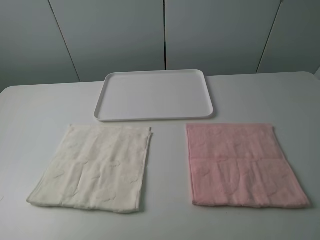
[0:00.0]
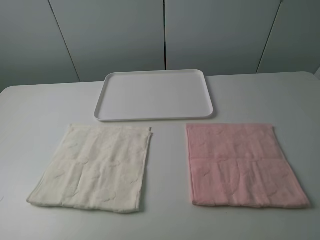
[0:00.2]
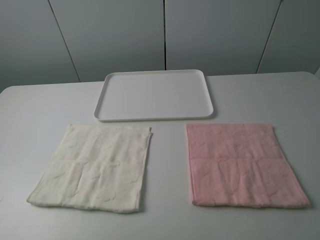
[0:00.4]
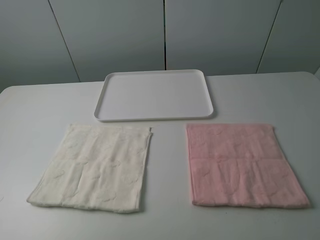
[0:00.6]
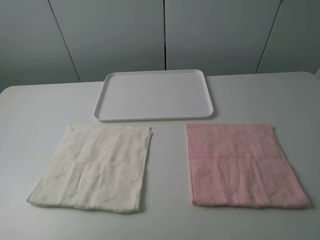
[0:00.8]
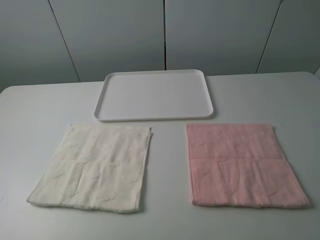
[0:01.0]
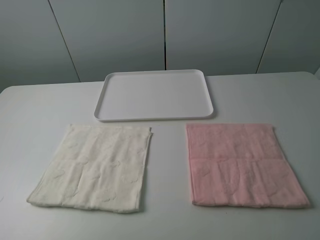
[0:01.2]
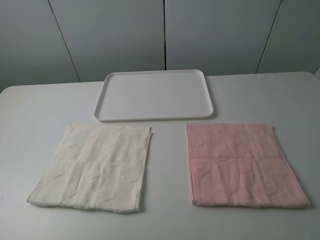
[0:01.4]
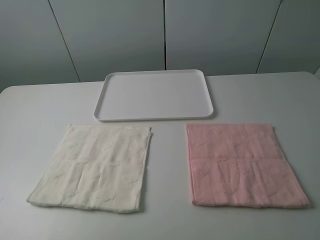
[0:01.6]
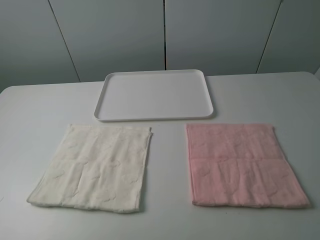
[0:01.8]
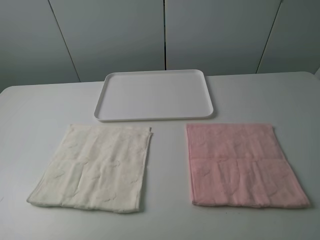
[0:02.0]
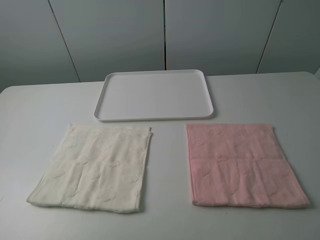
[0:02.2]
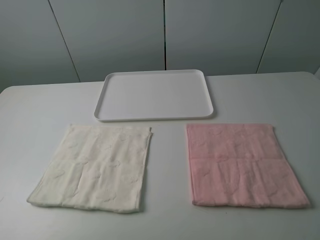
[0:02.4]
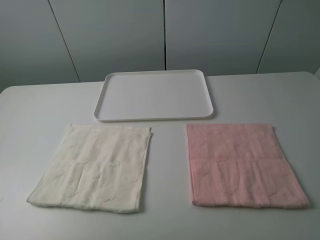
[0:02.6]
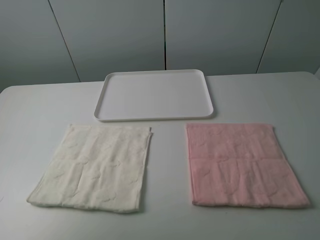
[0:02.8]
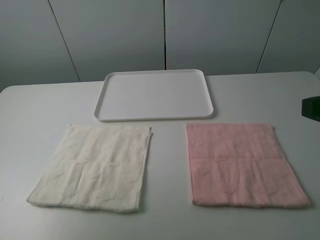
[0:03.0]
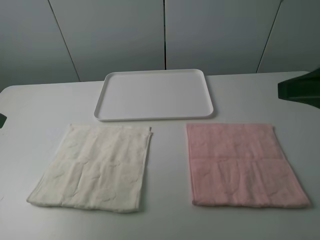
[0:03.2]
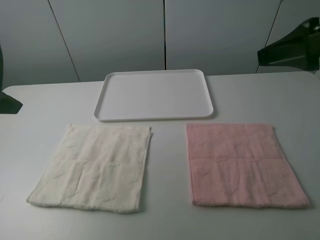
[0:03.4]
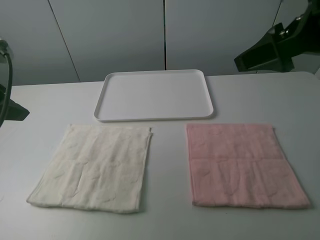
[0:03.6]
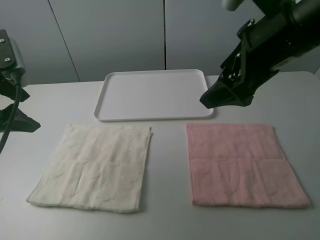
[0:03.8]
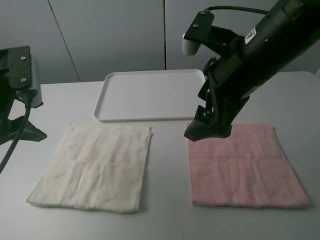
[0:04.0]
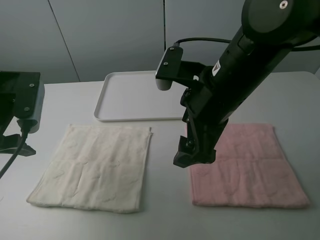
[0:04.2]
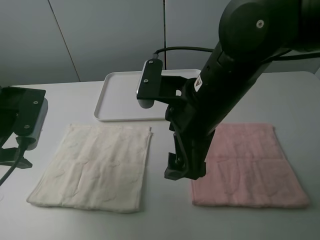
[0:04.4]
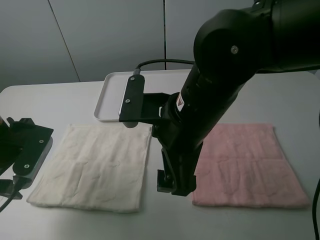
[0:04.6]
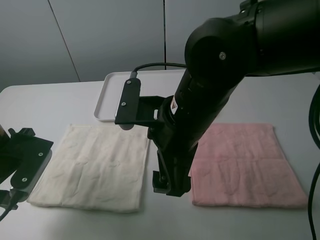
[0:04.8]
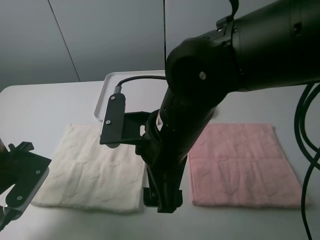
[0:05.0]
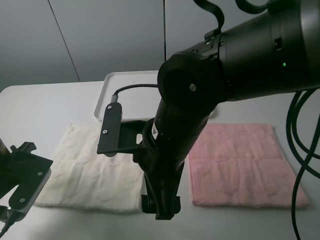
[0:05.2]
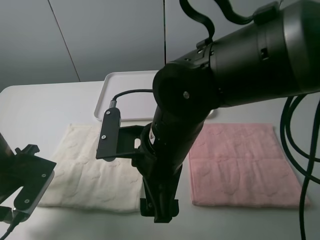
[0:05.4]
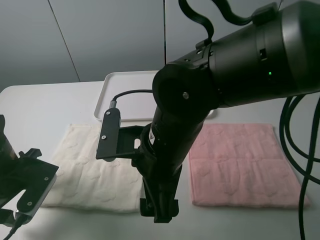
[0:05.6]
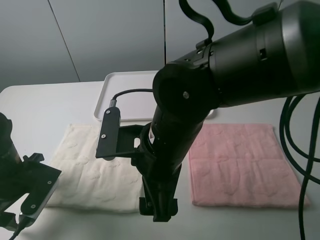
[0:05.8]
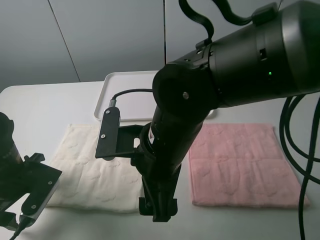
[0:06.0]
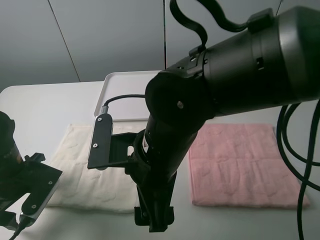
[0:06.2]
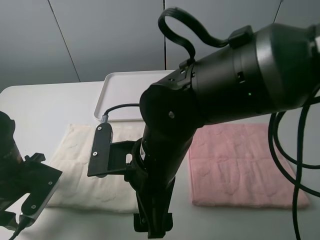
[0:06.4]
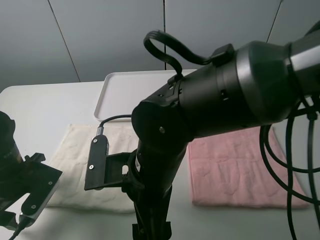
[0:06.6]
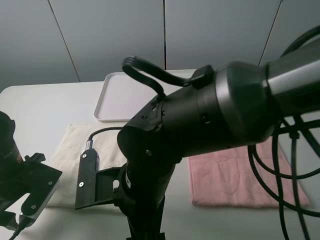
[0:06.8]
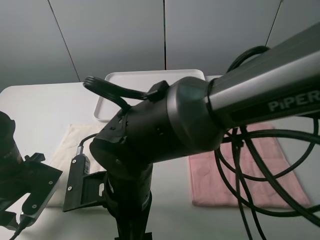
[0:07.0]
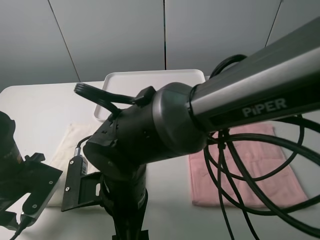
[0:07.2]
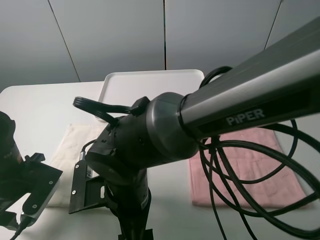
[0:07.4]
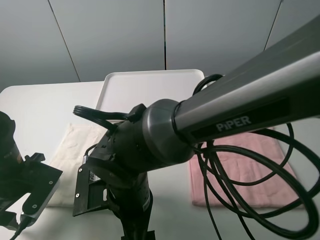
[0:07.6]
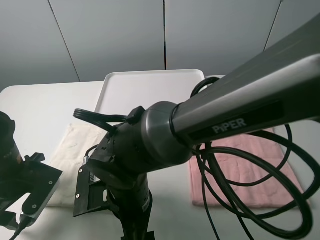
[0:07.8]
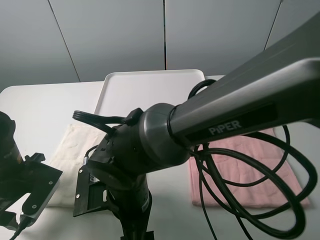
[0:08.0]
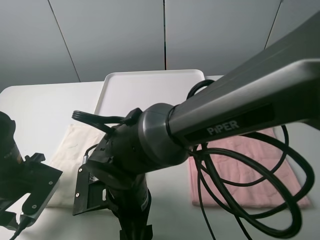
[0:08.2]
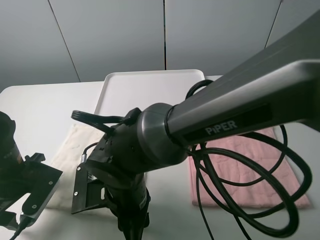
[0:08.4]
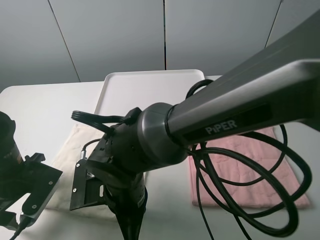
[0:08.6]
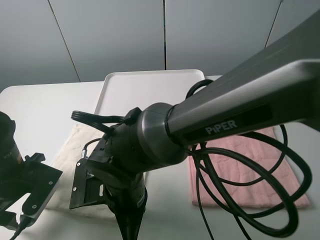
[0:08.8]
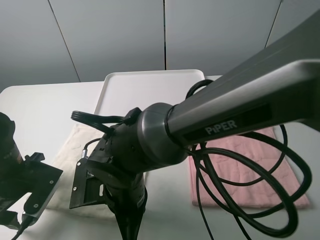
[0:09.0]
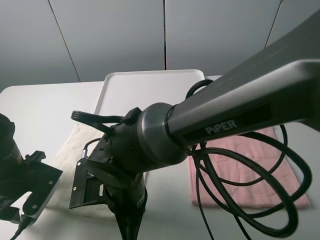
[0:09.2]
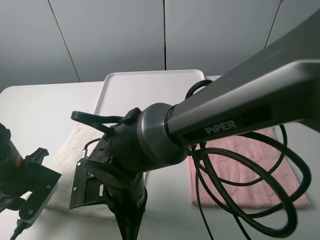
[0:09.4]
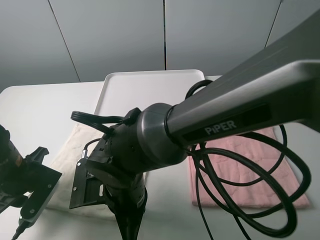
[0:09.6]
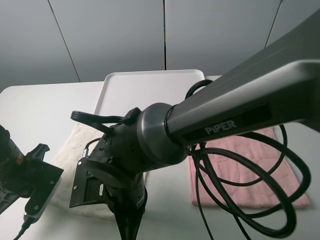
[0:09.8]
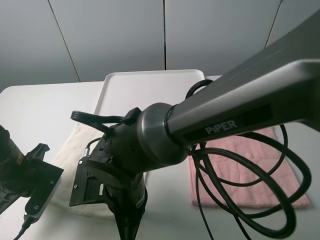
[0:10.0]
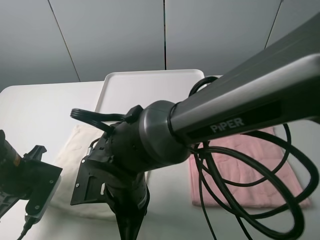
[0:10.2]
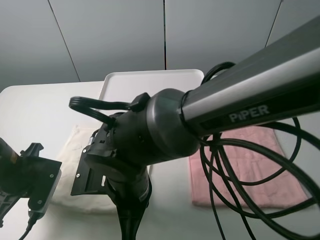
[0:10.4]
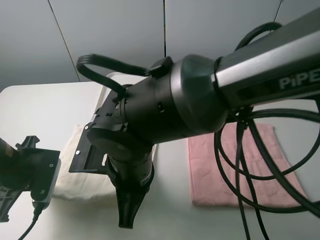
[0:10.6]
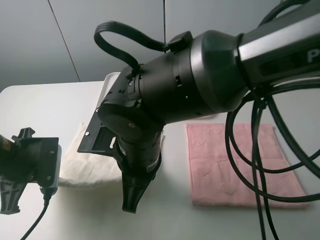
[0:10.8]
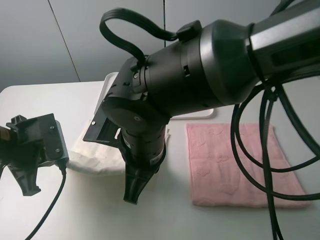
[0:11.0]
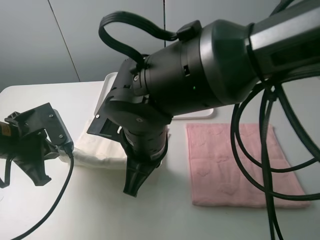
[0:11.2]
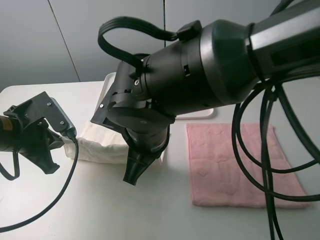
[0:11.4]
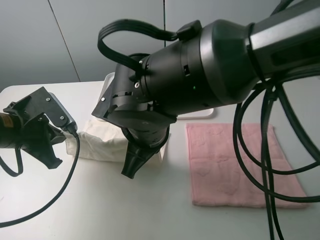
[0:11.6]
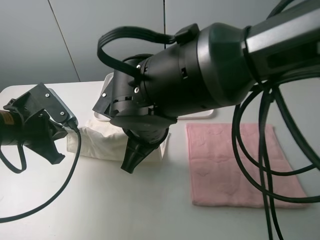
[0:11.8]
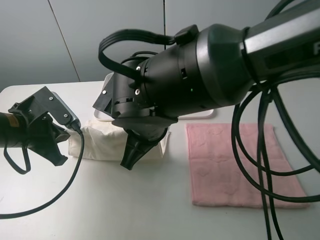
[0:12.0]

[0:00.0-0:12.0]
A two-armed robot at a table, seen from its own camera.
Task of the whole recording: fold one of the towels by two grippers and place it on the tray,then fold another towel by two grippers and place it on the folded towel.
Step, 0:00.0 to 0:10.0: Grasp the white towel with the left gripper.
0:01.6 to 0:03.0: The grippers both shift forward by approximately 10 cm.
0:03.0 to 0:04.4: The right gripper moves to the left and forward, approximately 20 cm, while the left gripper travels forward and downward by some 10 cm.
0:04.4 to 0:06.0: The right gripper goes some 5 cm to the left, while the left gripper moves downward, some 10 cm.
0:06.0 to 0:07.6: The right gripper heads downward and to the left, covering roughly 10 cm.
0:07.6 to 0:09.0: The right gripper closes up.
0:09.0 to 0:10.4: The left gripper closes its fingers.
0:10.4 to 0:12.0: The left gripper ends up approximately 5 cm from where it was; the right gripper travels forward and upward by some 10 cm.

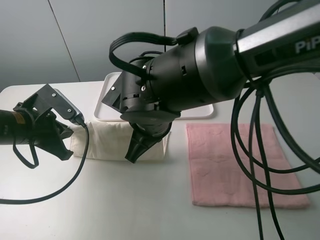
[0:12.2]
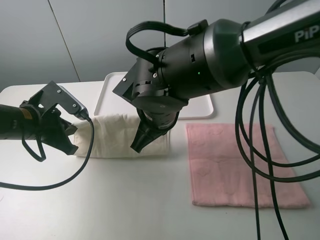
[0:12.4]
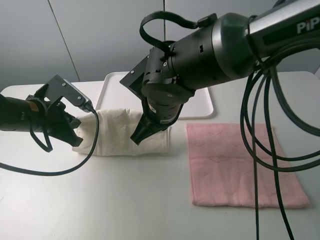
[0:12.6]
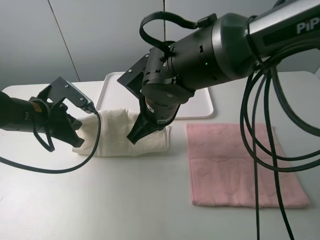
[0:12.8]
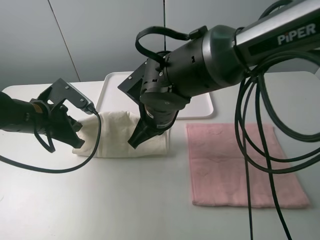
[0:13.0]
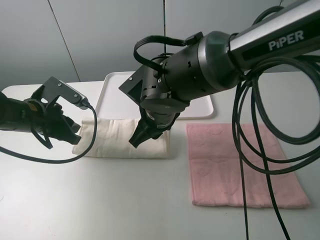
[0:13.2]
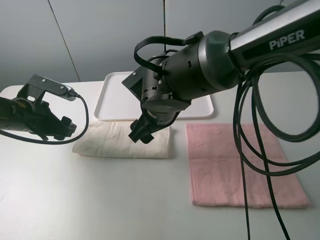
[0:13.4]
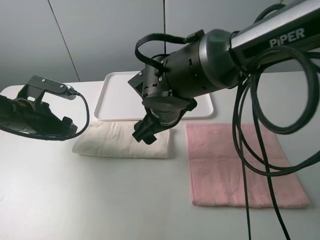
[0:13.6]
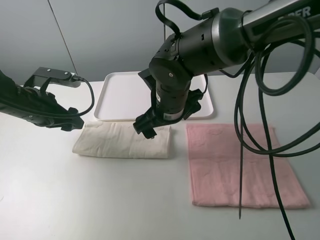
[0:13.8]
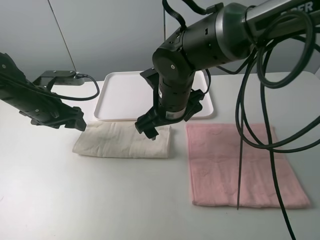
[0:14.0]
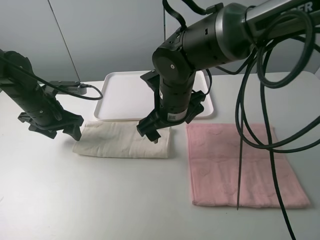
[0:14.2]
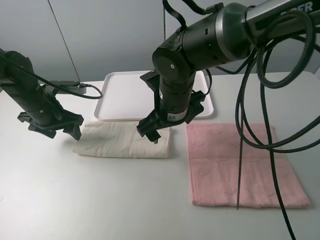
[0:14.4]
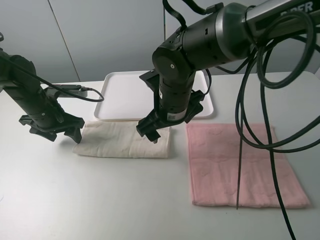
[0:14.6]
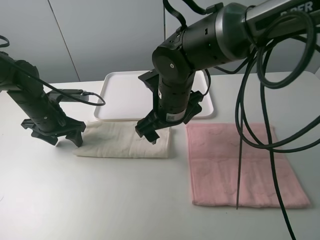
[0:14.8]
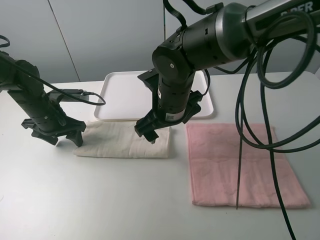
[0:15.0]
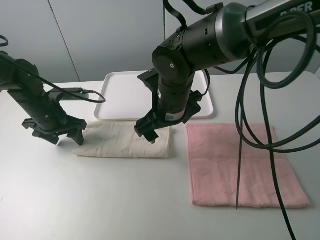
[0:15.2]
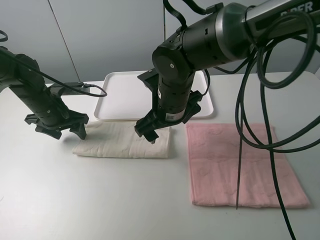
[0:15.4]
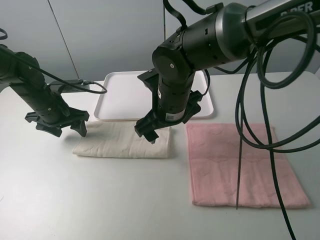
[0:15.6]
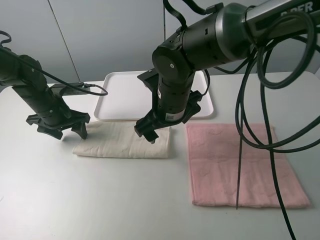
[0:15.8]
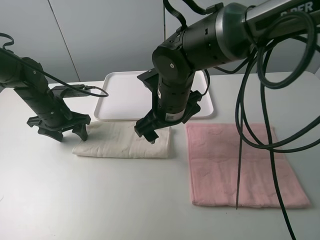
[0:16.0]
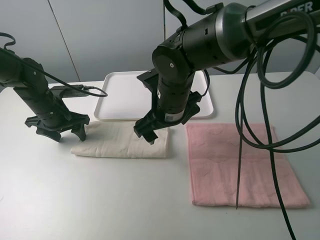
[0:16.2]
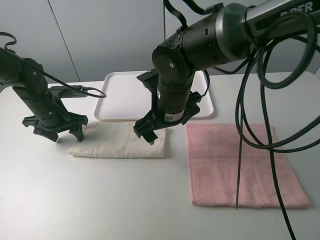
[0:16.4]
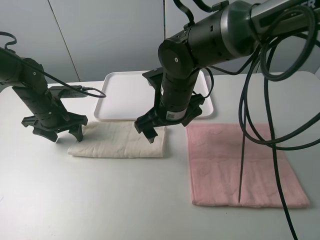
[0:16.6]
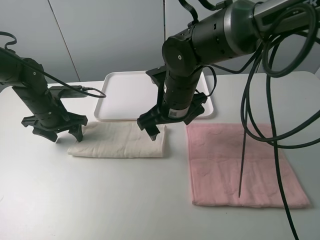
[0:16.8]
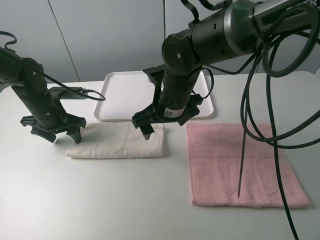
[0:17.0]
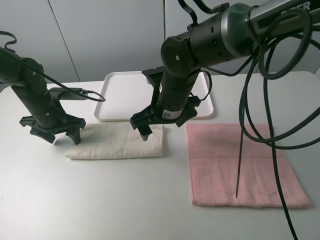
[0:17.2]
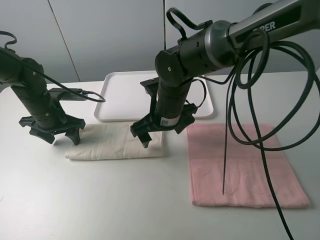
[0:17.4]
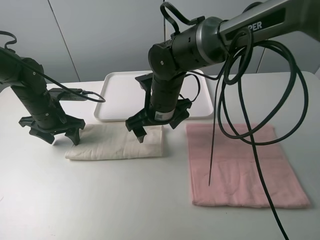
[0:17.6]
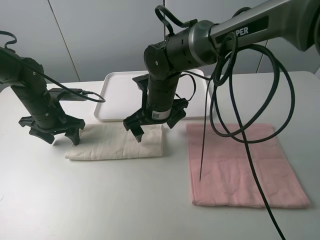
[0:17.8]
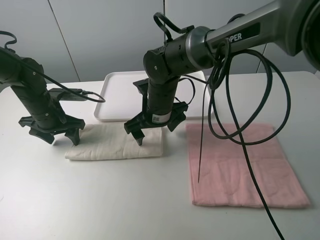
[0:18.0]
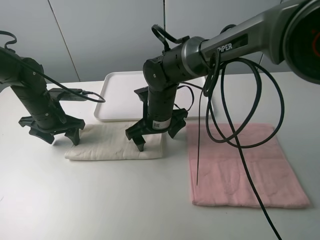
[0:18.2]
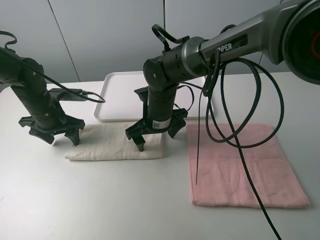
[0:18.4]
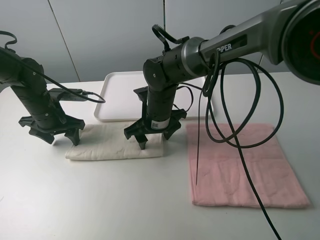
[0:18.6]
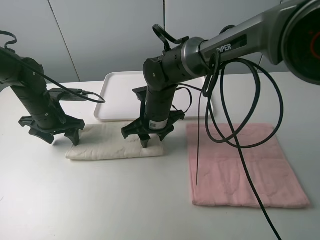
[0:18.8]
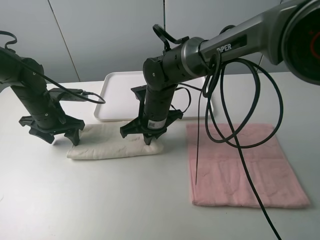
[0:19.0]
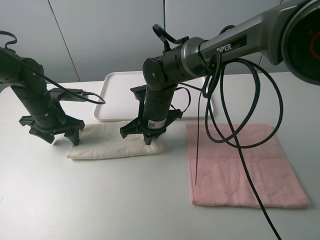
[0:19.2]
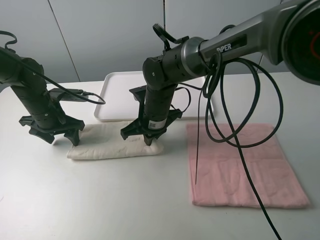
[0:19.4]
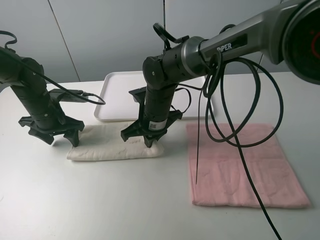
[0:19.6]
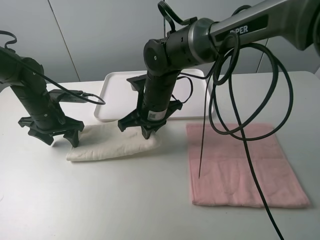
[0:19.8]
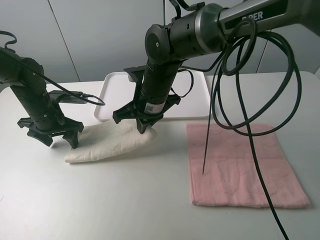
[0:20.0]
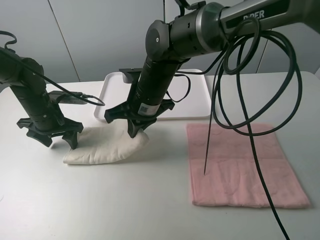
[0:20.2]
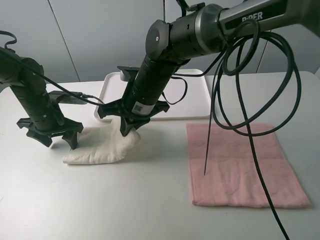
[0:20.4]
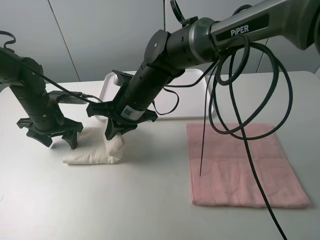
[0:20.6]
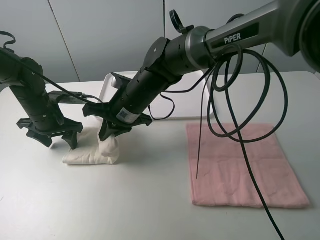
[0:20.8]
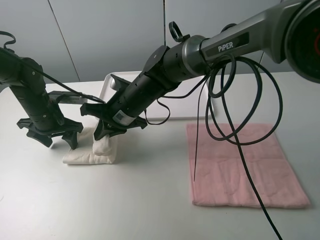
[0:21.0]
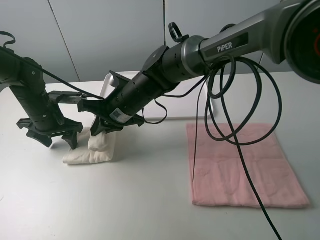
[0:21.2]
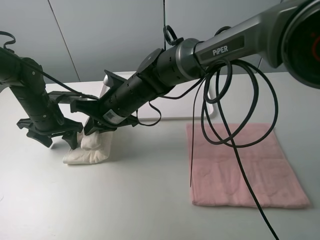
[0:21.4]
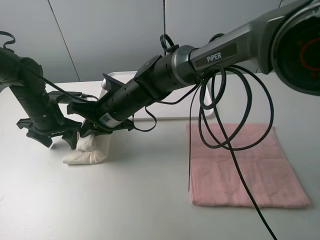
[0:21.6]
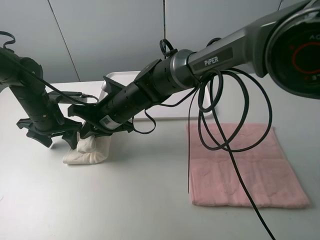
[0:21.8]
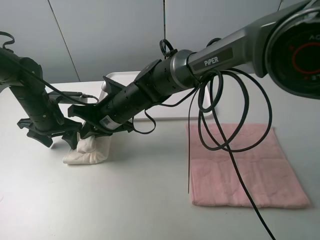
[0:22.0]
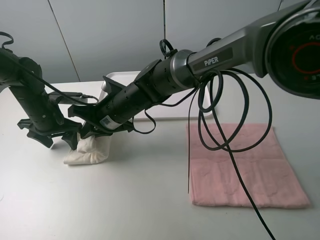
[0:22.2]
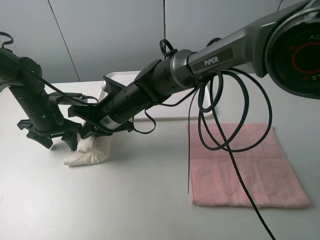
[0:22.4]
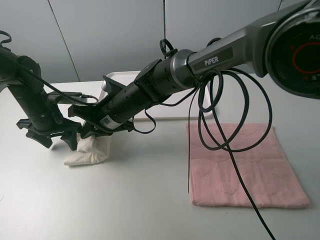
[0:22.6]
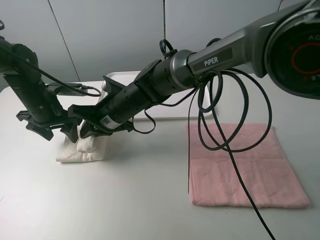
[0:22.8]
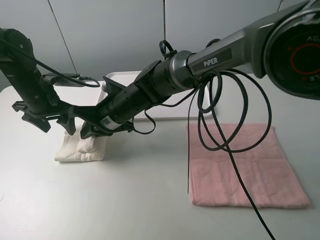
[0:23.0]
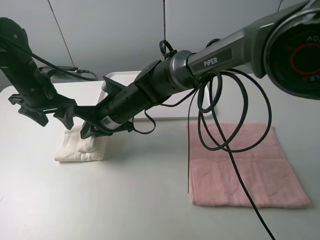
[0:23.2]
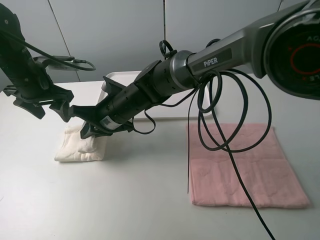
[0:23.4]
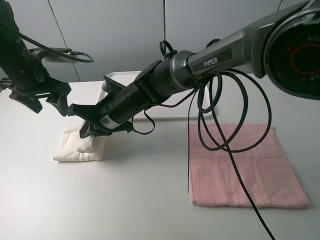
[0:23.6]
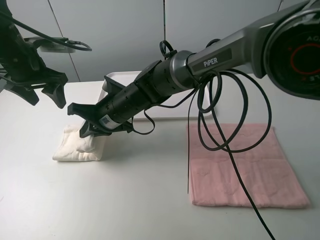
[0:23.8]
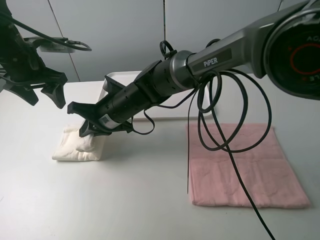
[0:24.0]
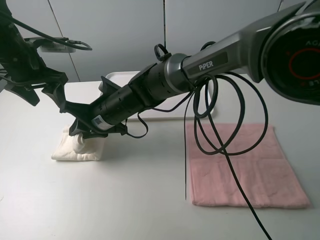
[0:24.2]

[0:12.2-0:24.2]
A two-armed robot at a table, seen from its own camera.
Task of the whole recording: fold one of the towels by two grippers and place it on the tray,then fold another towel by two grippers and place it on the folded towel.
Step, 0:13.4 to 0:16.4: Press the white towel with the left gripper.
Step, 0:16.6 to 0:19.2: Grasp the white towel with the right gripper.
0:12.2 to 0:13.8: The grippers both shift forward by approximately 5 cm. The left gripper opens, while the right gripper opens its fingers.
0:13.8 to 0:15.2: The left gripper shifts by approximately 5 cm.
0:15.2 to 0:16.6: The grippers move only a little.
0:16.6 to 0:18.2: The right gripper shifts approximately 5 cm downward.
0:18.2 to 0:19.8: The right gripper closes.
0:19.8 to 0:21.2: The right gripper moves to the left, some 5 cm.
0:21.2 to 0:22.6: There are only small adjustments of the grippers.
0:22.6 to 0:24.2: The left gripper is displaced upward by about 15 cm.
